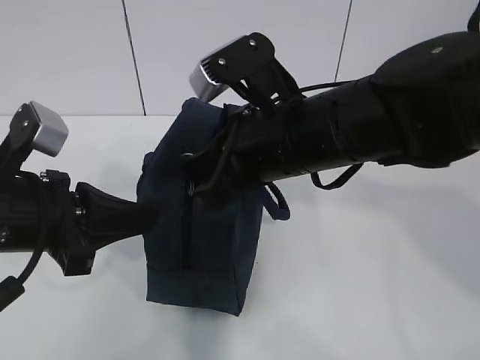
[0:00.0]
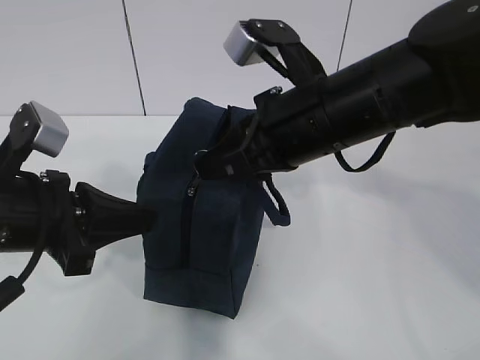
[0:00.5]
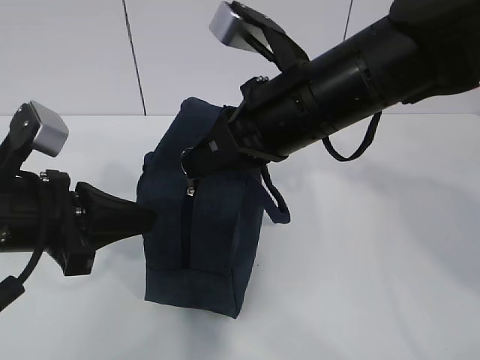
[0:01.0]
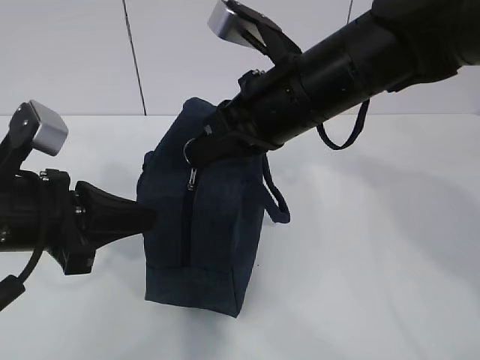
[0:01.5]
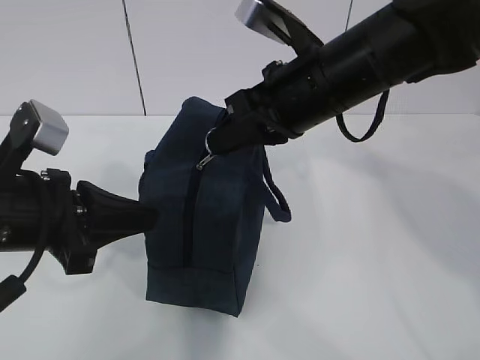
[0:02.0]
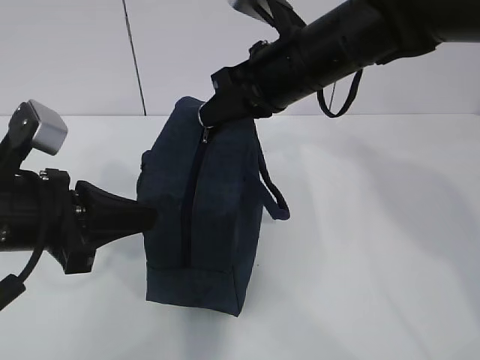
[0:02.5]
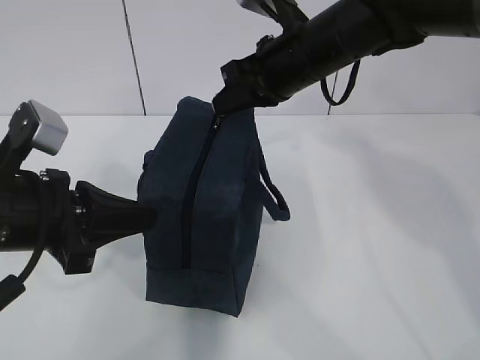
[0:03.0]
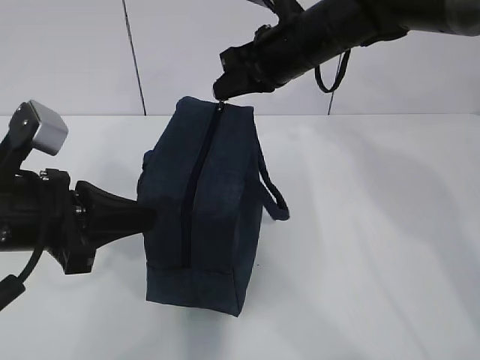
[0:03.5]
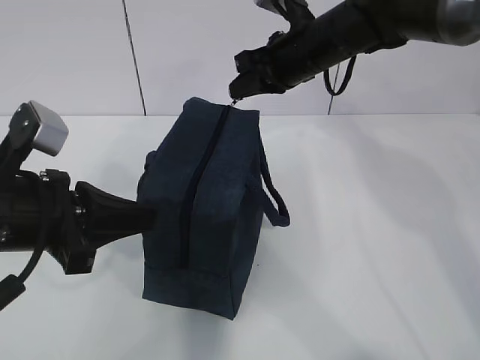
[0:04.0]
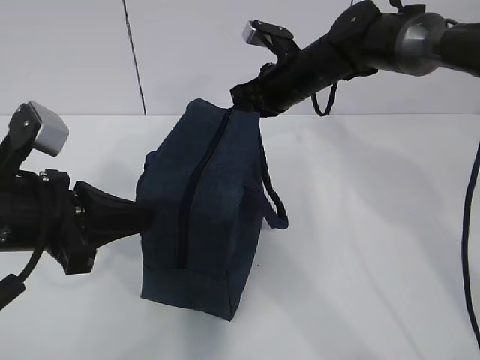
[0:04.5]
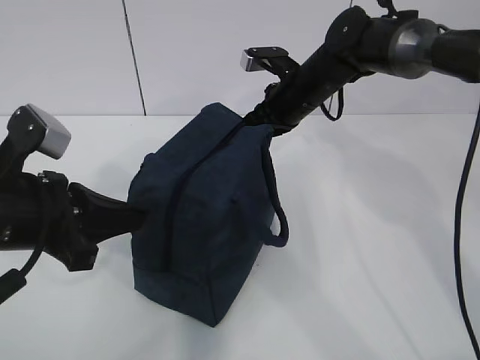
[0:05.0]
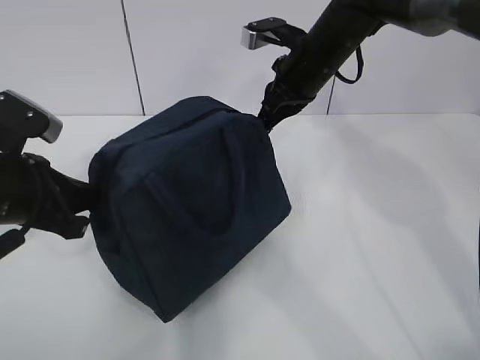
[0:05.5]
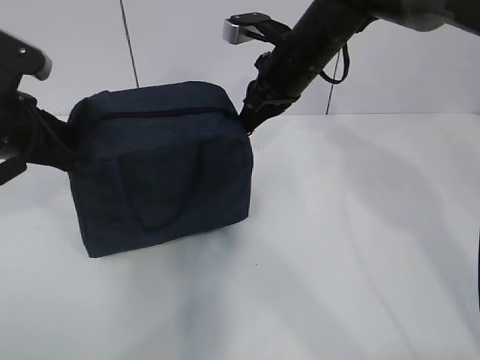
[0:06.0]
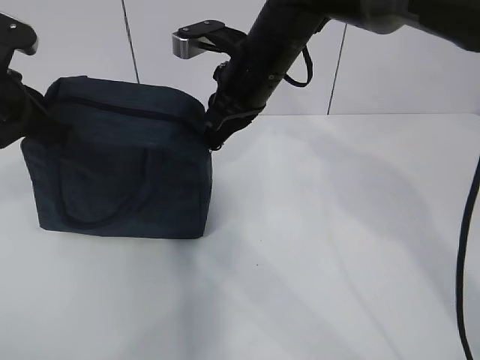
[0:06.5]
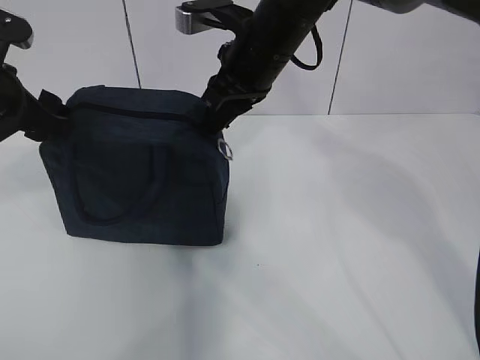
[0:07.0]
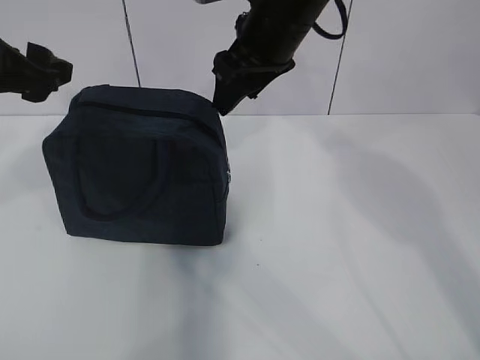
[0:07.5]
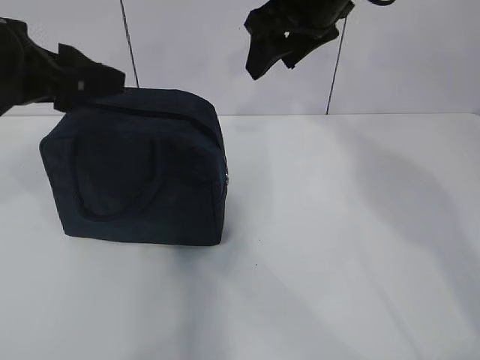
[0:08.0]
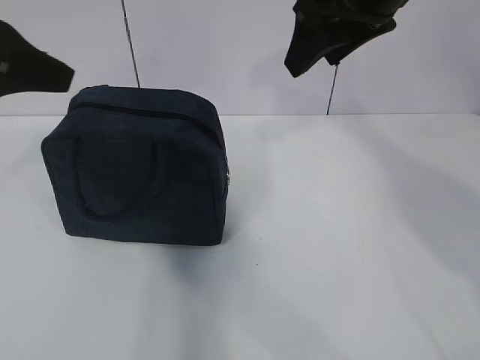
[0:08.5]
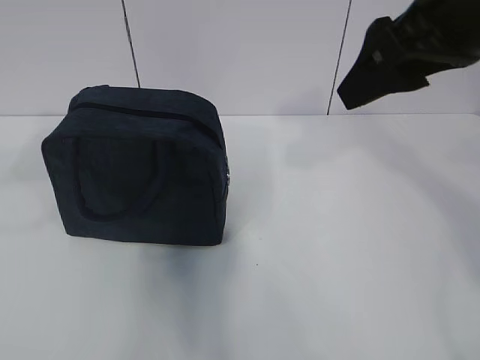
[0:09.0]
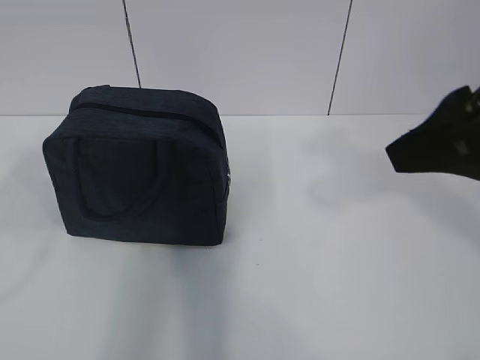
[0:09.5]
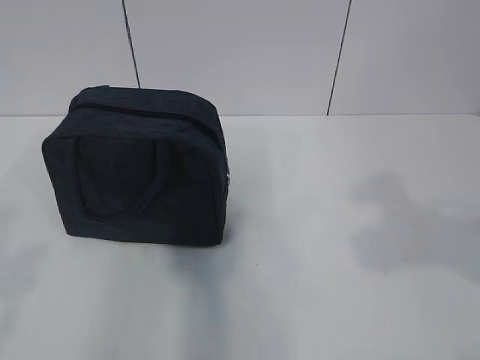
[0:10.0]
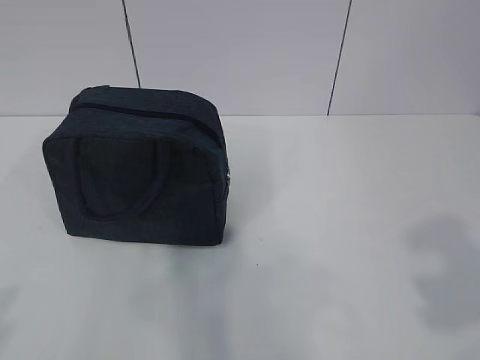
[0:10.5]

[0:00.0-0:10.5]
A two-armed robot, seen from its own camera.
0:00.0 to 0:02.0: The right gripper changes place by roughly 5 cm.
0:02.0 to 0:04.0: The right gripper goes approximately 15 cm forward.
0:04.0 to 0:06.5: The left gripper shifts approximately 10 cm forward and to the left. The right gripper goes about 5 cm to the left.
0:06.5 to 0:08.5: The left gripper is displaced upward and backward by some 10 cm, and opens its fingers. Meanwhile the right gripper moves upward, to the right and backward, approximately 15 cm, and opens its fingers.
0:08.5 to 0:10.5: The left gripper is displaced backward by about 25 cm; the right gripper shifts some 35 cm backward and to the right.
